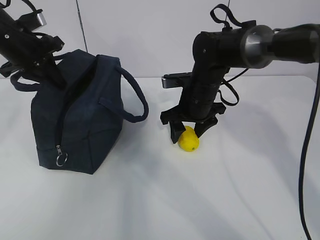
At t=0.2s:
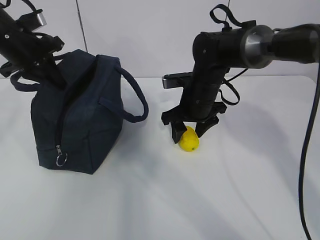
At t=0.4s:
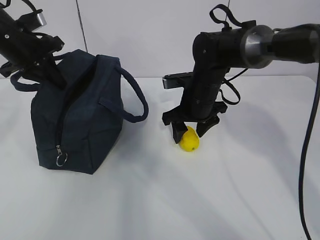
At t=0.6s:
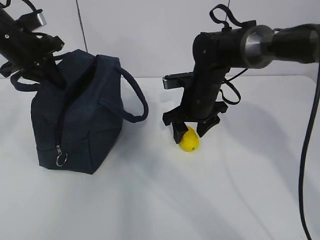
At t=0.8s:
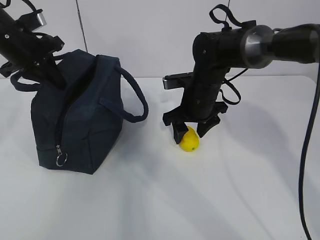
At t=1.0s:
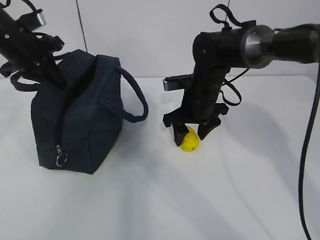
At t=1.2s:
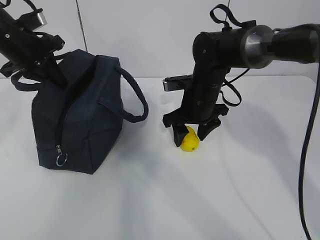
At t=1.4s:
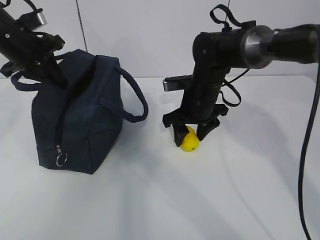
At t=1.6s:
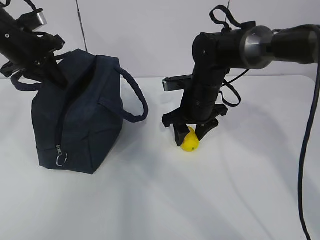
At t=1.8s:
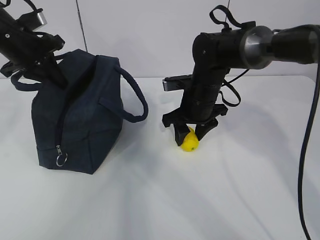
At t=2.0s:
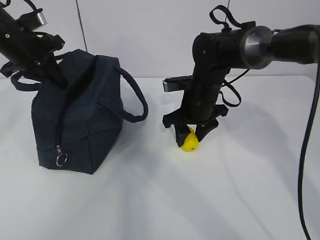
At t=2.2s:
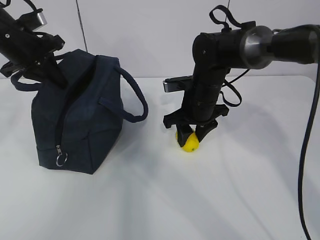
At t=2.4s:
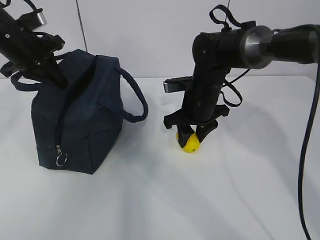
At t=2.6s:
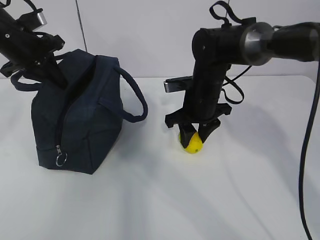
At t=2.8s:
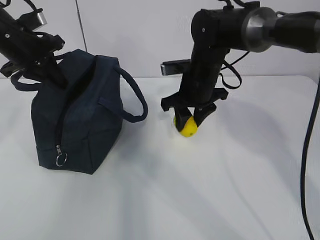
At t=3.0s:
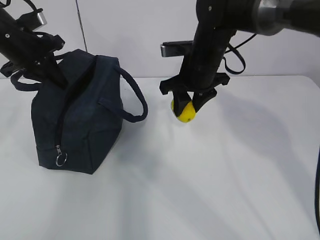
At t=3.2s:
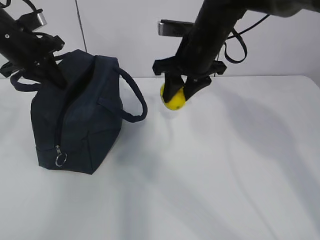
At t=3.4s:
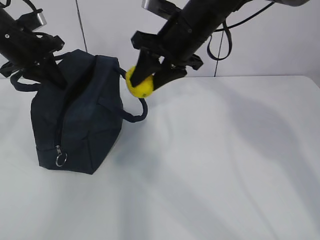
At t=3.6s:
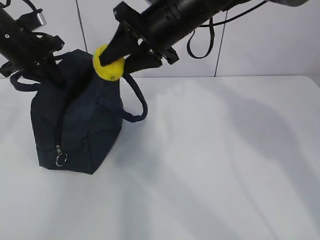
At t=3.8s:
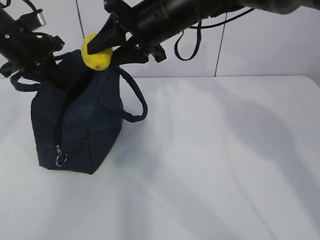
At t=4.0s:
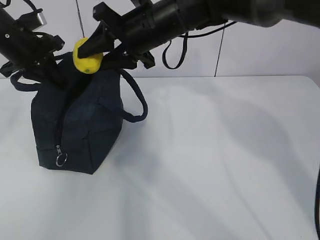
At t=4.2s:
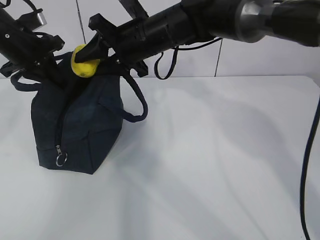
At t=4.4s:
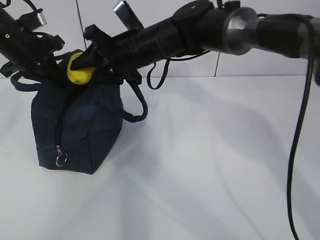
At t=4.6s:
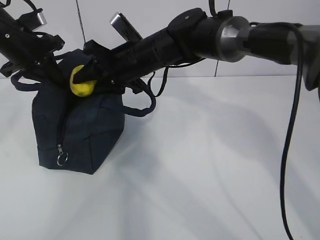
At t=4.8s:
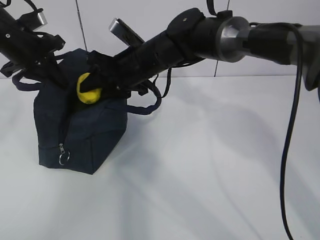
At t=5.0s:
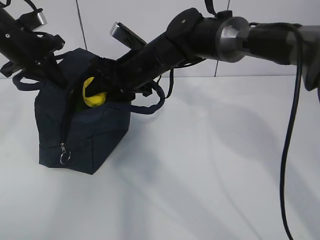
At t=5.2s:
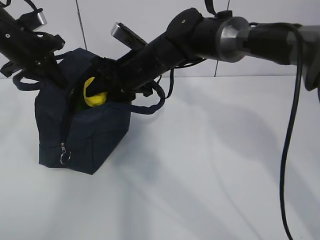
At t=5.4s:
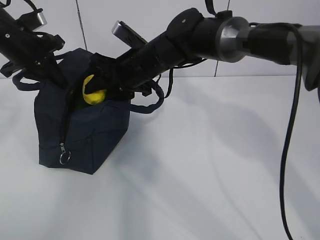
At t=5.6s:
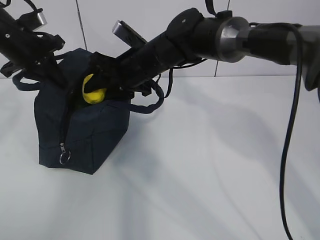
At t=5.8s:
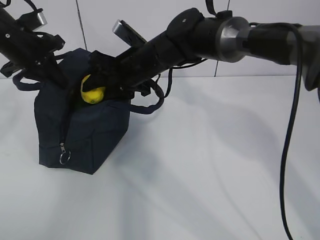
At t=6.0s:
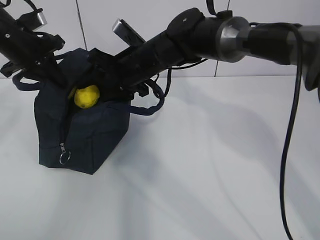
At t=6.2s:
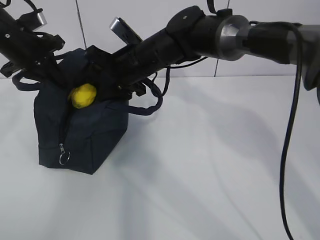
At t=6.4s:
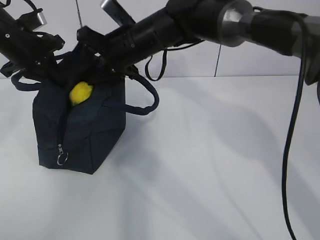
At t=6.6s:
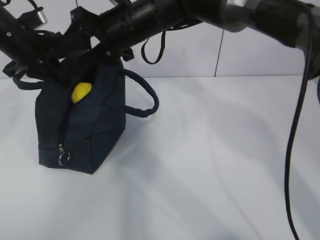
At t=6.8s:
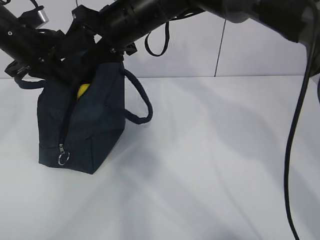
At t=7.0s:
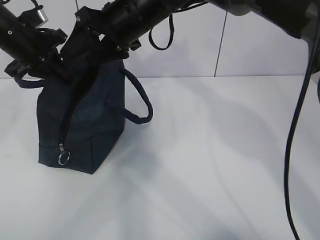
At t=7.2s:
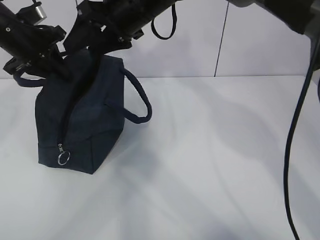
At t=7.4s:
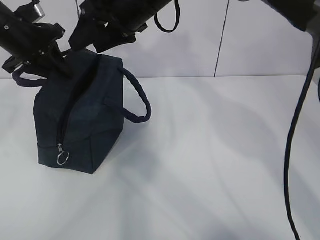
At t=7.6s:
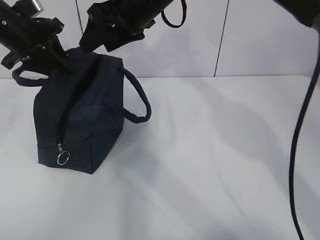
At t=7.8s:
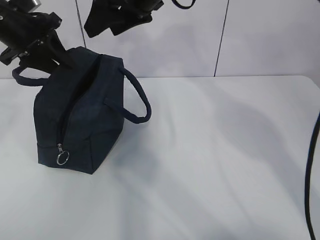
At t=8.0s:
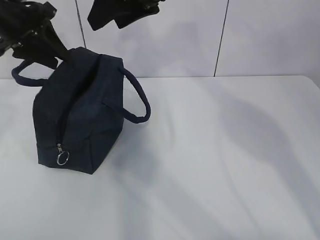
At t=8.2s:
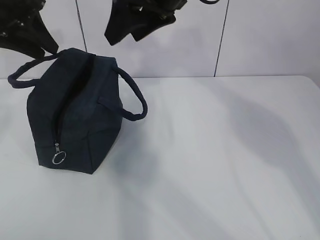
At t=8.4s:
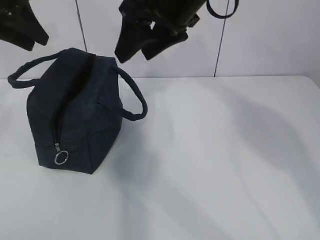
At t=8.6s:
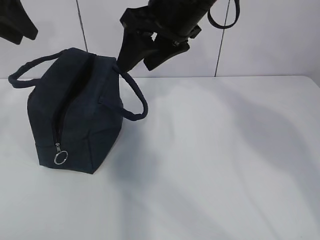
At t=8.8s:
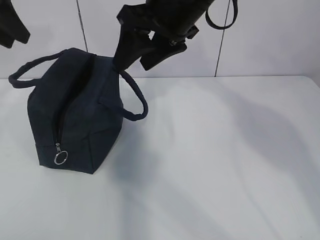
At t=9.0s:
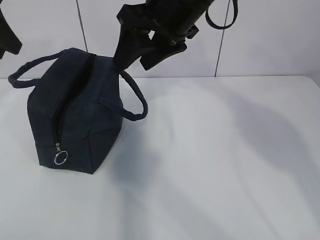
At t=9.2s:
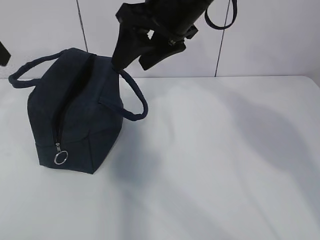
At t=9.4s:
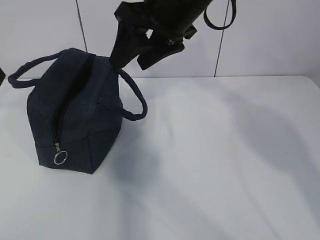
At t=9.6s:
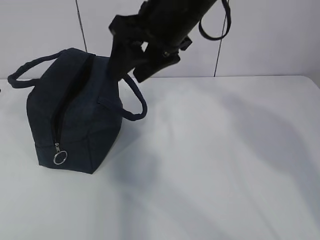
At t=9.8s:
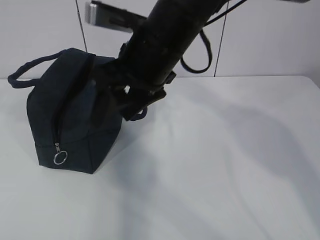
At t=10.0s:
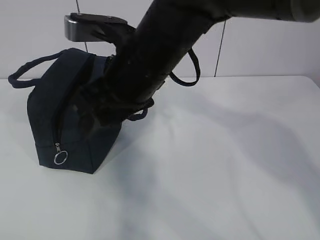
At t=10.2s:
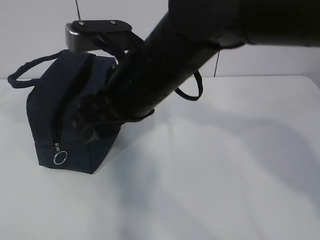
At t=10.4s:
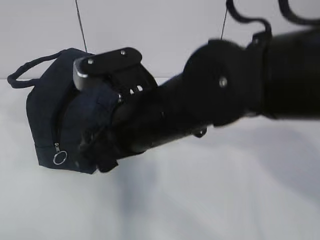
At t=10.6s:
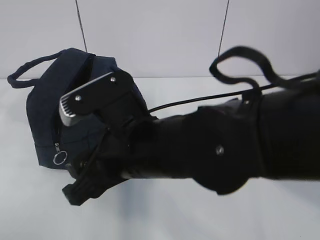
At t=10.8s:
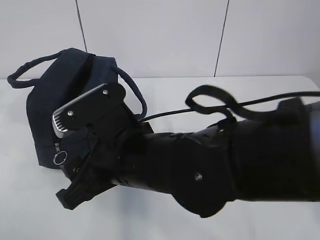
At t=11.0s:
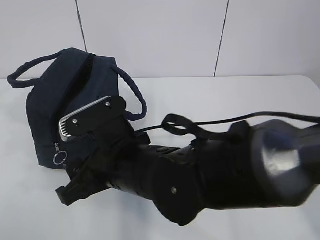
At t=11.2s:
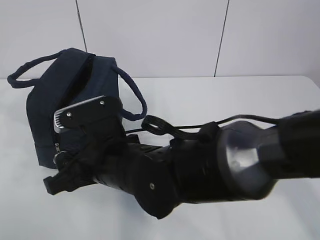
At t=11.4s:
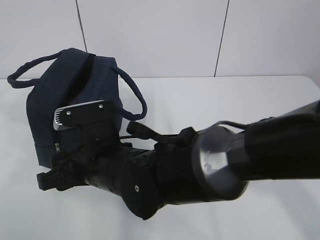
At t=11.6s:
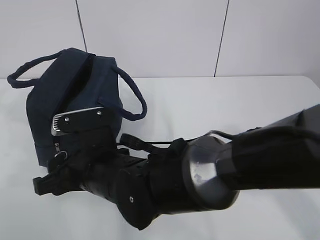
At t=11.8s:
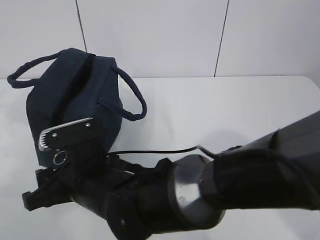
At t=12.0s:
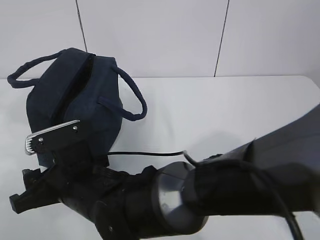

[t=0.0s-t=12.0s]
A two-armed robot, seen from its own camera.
t=0.0s to t=1.6s: Neither gripper changes place.
t=1.6s to t=3.0s: The right gripper moves upward, some 5 cm.
t=3.0s to t=4.4s: The right gripper is displaced to the left by about 10 cm.
t=4.4s to t=6.0s: The grippers make only small movements.
t=6.0s to t=7.6s: The left gripper opens up. The right gripper shifts roughly 10 cm upward.
t=7.6s to t=9.0s: The right gripper heads backward, covering roughly 5 cm; the left gripper travels upward and backward by roughly 15 cm.
t=9.0s to t=10.4s: The right gripper goes about 15 cm backward, downward and to the left; the left gripper heads backward, covering some 10 cm.
t=10.4s to t=12.0s: The right gripper is displaced downward and to the left by roughly 15 cm.

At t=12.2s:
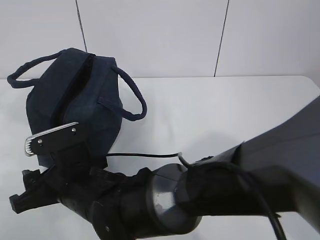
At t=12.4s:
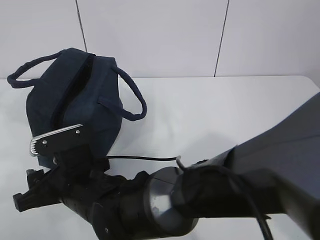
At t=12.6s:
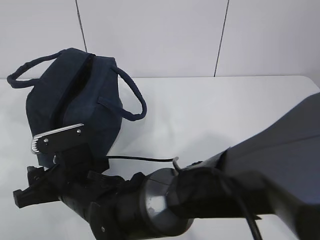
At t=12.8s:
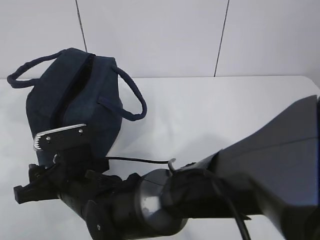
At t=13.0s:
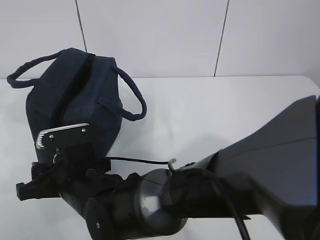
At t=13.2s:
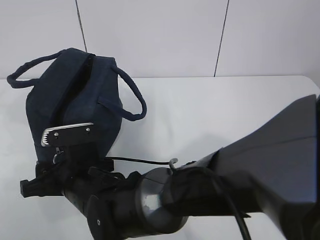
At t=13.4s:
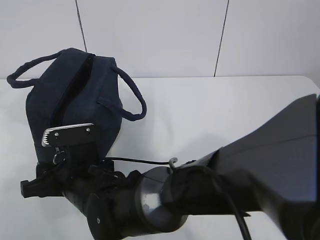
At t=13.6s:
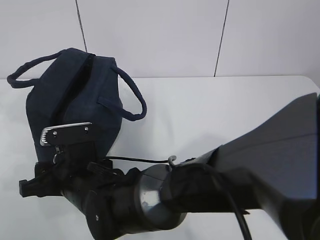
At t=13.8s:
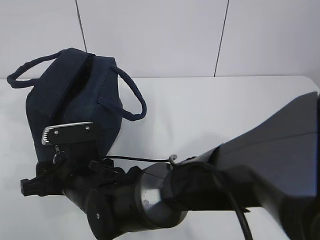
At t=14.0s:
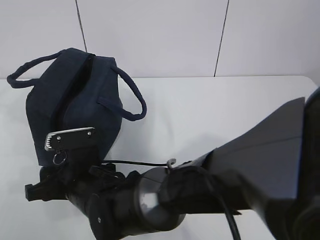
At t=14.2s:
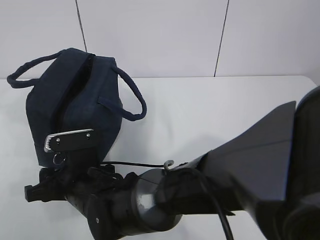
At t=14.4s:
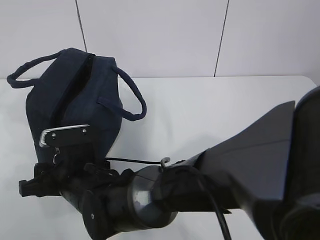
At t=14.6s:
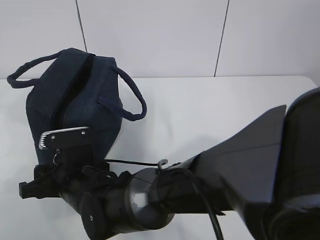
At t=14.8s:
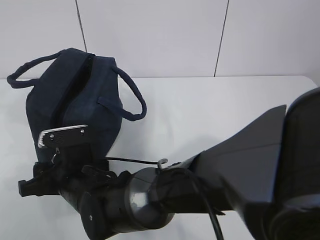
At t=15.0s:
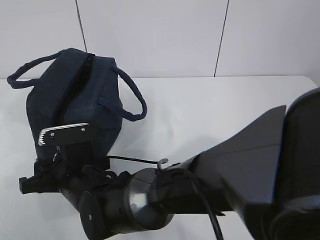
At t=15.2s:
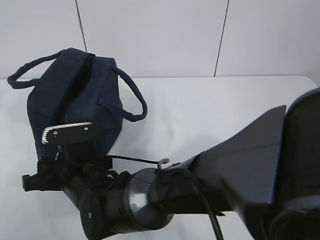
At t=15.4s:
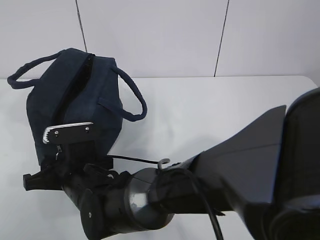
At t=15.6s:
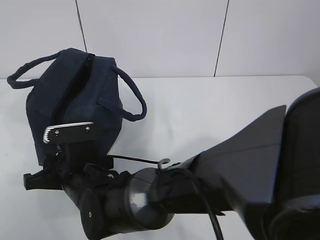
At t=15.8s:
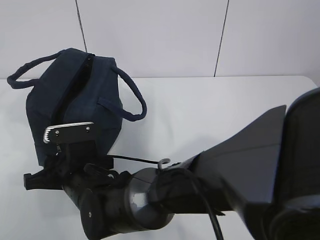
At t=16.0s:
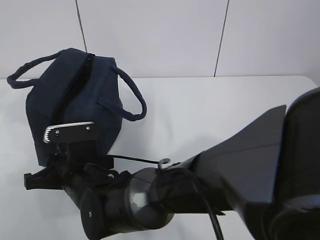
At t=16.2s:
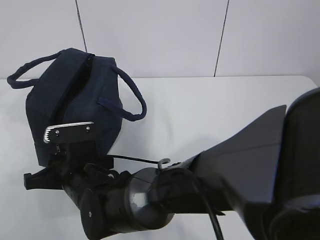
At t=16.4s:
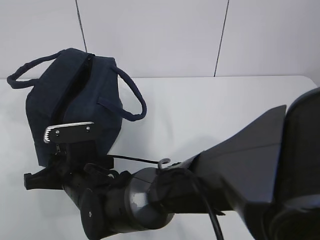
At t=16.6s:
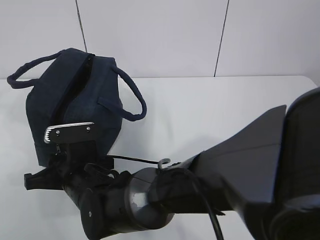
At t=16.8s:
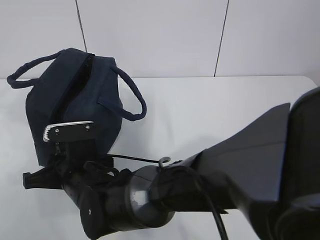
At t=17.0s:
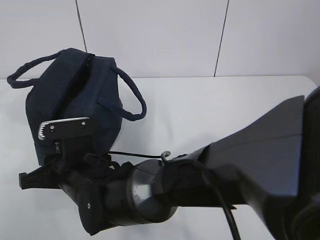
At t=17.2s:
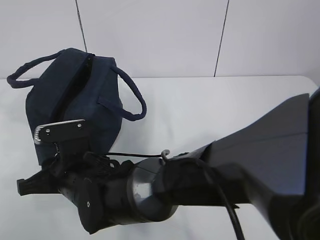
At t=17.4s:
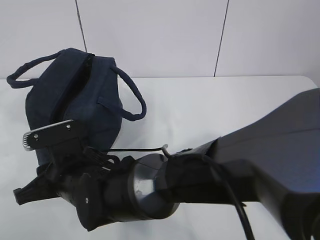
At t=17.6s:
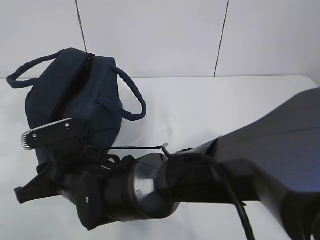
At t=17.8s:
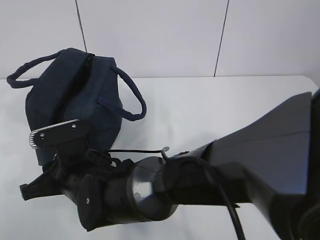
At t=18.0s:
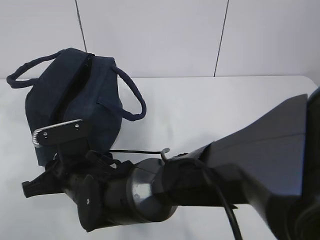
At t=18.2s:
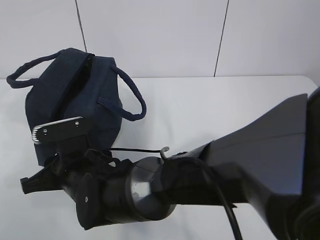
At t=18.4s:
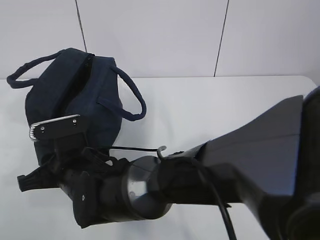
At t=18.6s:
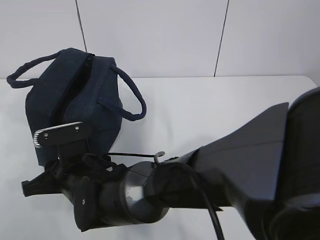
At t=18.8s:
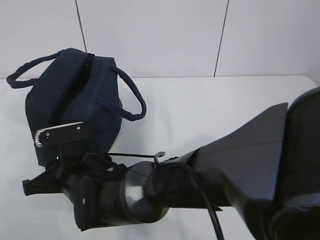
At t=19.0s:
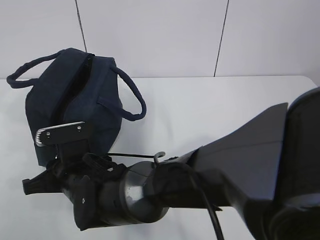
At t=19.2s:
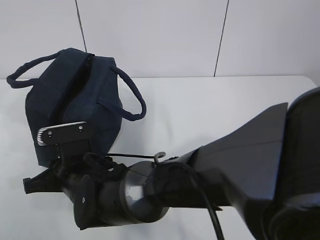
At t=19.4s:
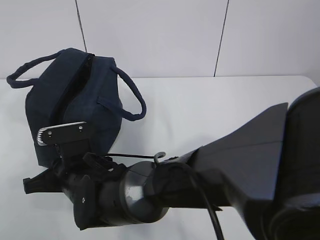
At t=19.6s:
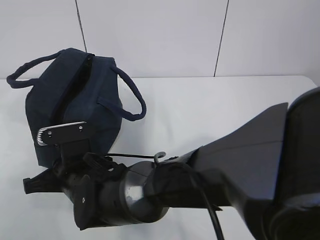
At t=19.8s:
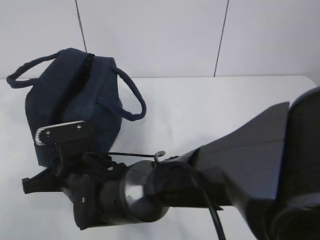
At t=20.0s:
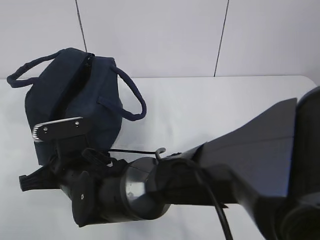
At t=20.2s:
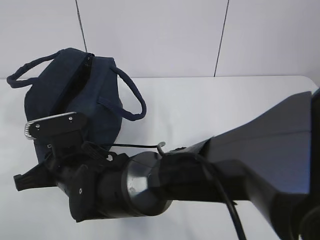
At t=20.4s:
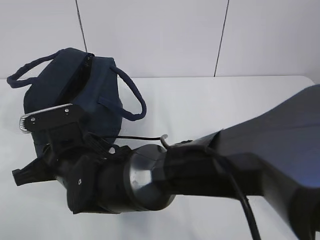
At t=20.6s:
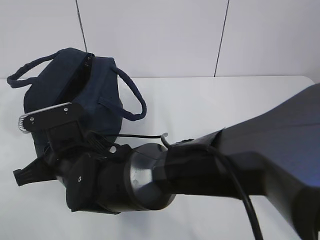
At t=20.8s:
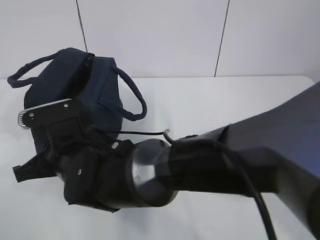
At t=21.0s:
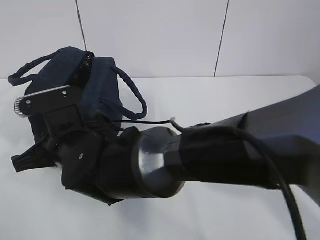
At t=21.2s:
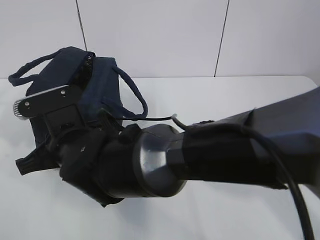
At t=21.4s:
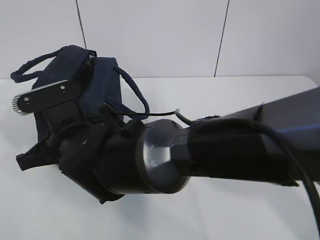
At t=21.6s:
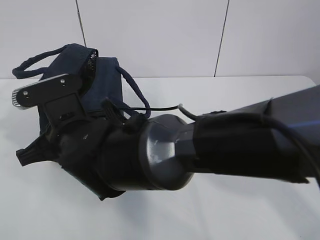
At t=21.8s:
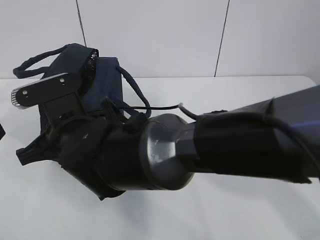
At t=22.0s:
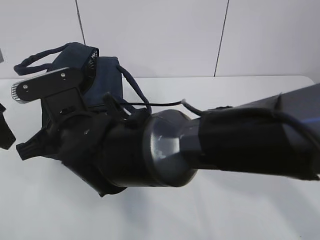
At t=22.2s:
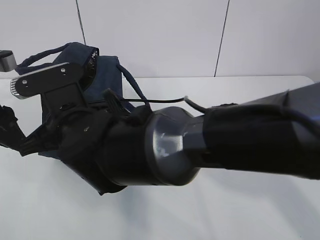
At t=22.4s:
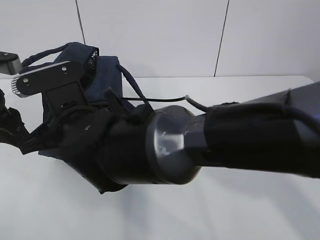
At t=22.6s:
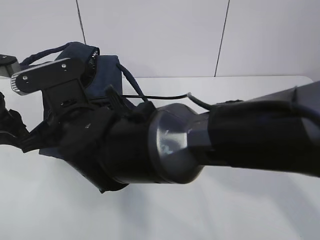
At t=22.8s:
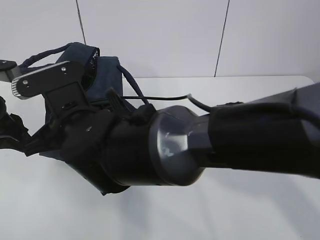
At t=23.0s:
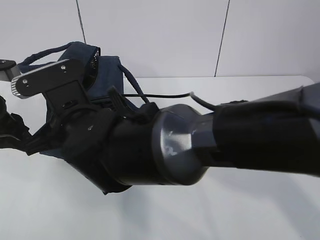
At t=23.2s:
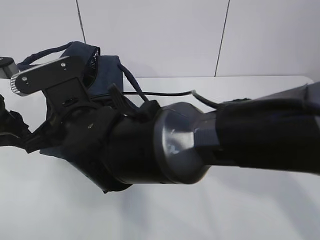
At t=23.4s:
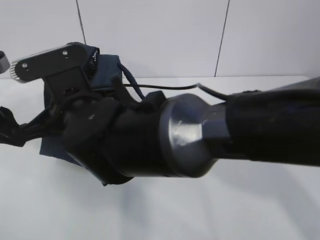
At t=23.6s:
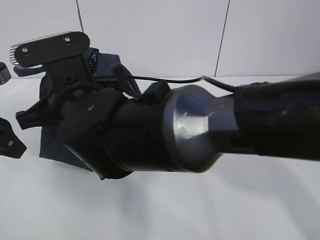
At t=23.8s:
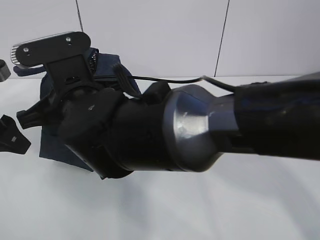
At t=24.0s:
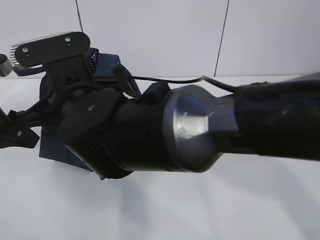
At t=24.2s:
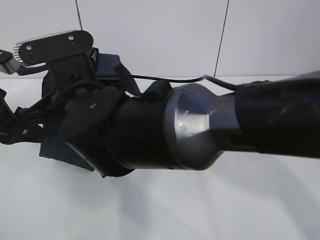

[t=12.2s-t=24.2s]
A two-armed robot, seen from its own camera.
Step, t=12.2s to t=21.2s: Grab the lunch bag with your left hand.
Step, t=21.4s to t=21.8s: Pull the zipper with your right hand.
t=12.2s to t=15.2s: There are only small adjustments of the grippers.
t=15.2s to t=16.6s: The right gripper closes up.
t=16.6s to t=18.2s: The grippers move only a little.
t=18.2s to t=19.8s: The right gripper closes.
t=19.8s to t=21.2s: The left gripper shifts by approximately 5 cm. Meanwhile the right gripper travels upward by roughly 5 cm.
t=21.2s to t=22.6s: The left gripper goes roughly 5 cm downward.
t=22.6s to t=24.2s: The left gripper opens.
